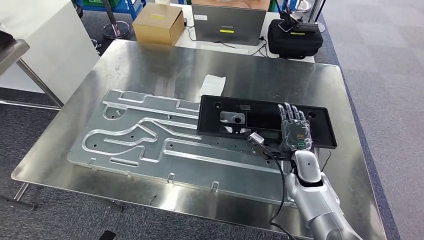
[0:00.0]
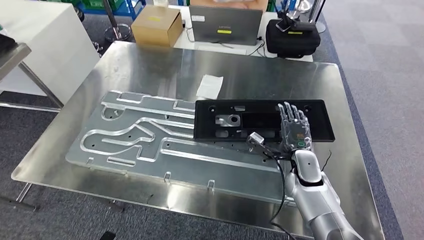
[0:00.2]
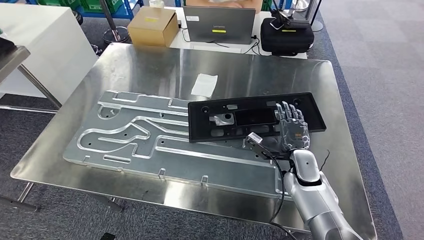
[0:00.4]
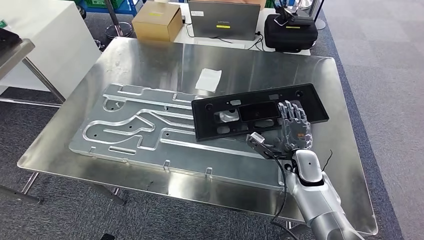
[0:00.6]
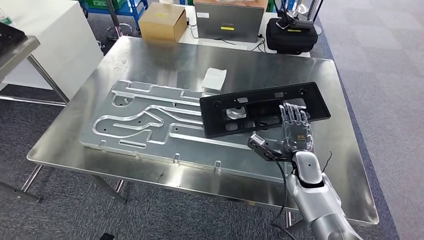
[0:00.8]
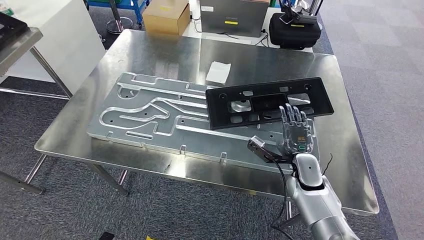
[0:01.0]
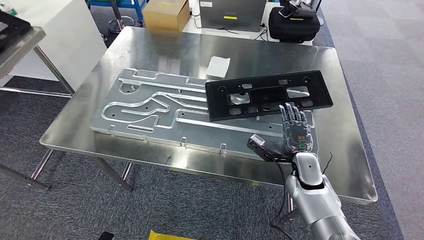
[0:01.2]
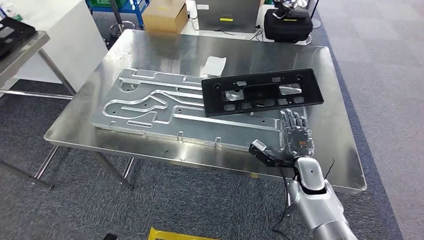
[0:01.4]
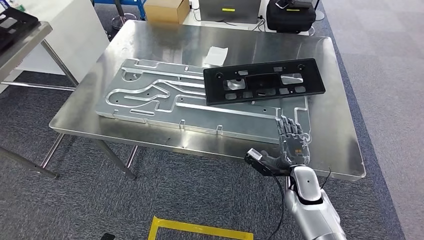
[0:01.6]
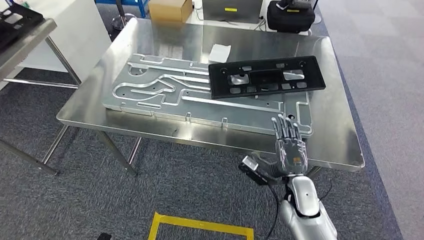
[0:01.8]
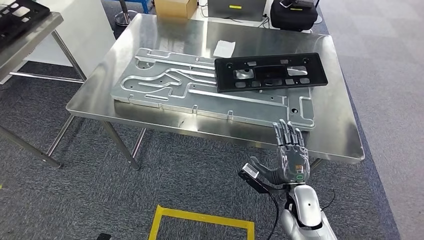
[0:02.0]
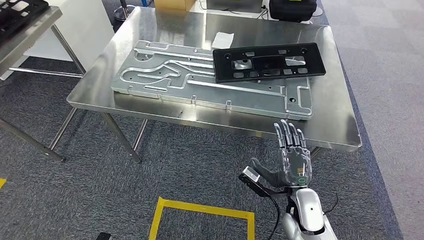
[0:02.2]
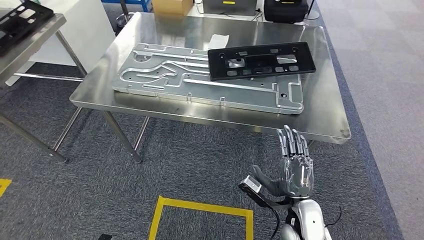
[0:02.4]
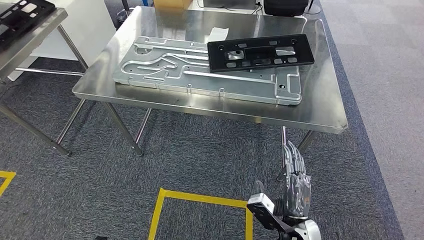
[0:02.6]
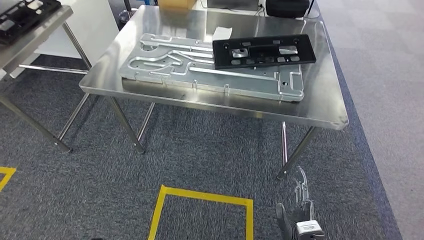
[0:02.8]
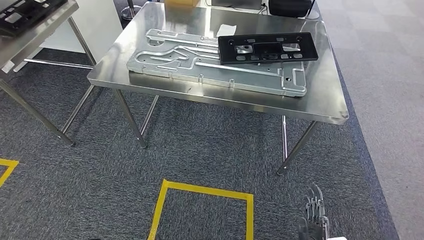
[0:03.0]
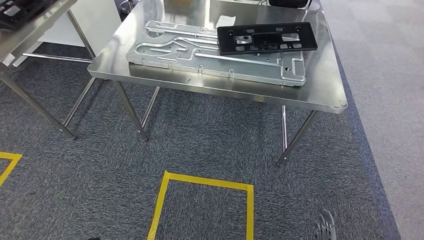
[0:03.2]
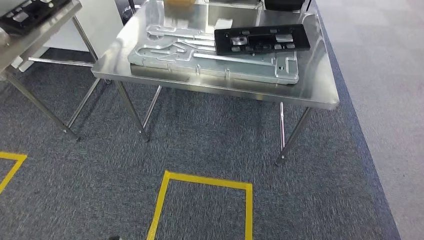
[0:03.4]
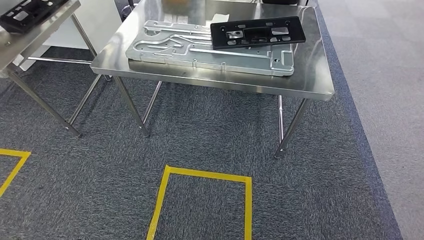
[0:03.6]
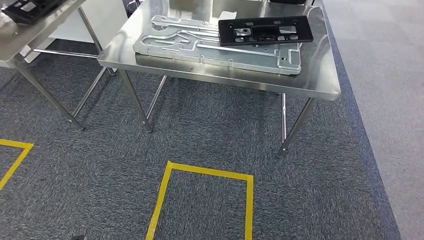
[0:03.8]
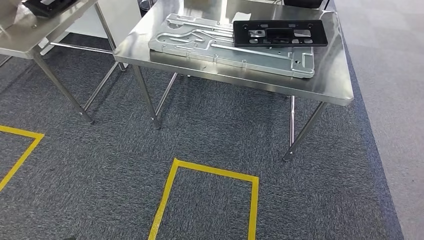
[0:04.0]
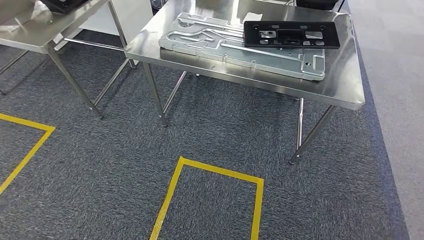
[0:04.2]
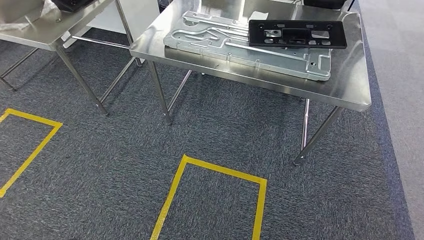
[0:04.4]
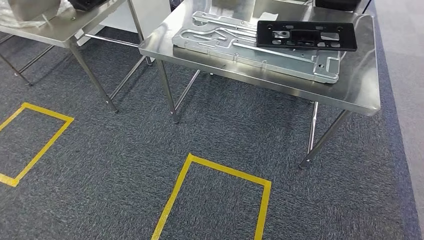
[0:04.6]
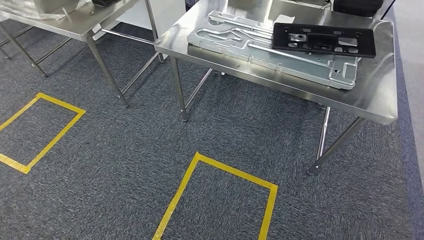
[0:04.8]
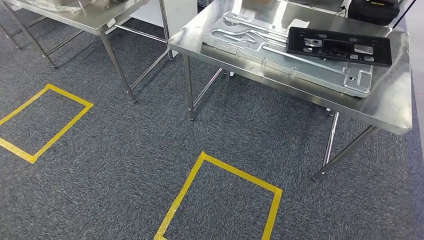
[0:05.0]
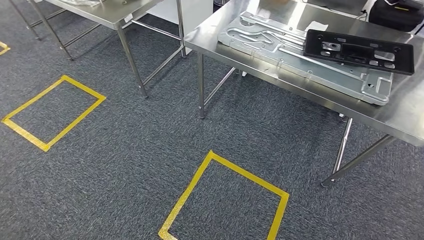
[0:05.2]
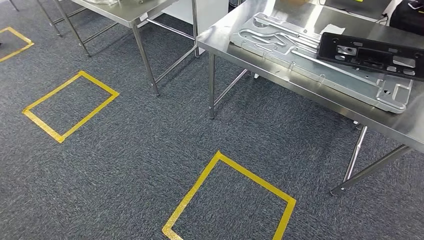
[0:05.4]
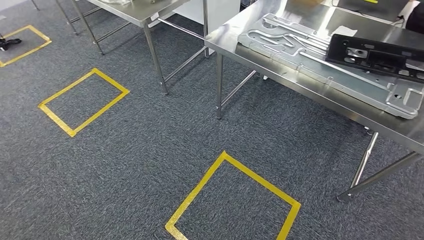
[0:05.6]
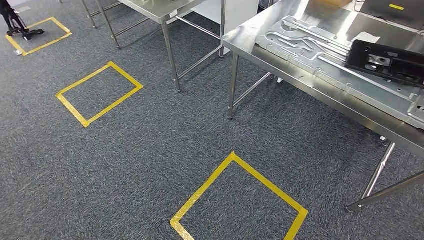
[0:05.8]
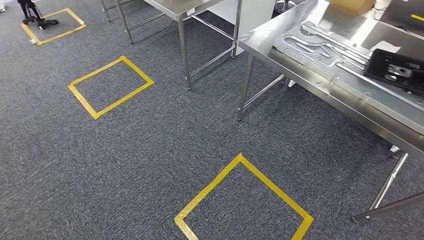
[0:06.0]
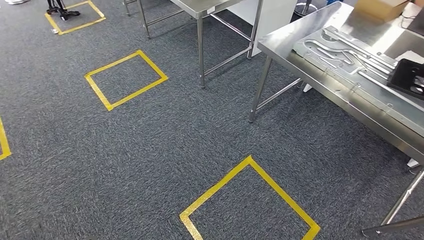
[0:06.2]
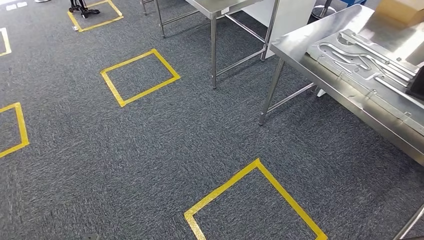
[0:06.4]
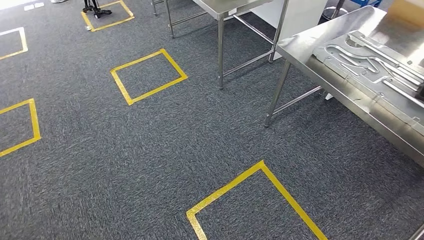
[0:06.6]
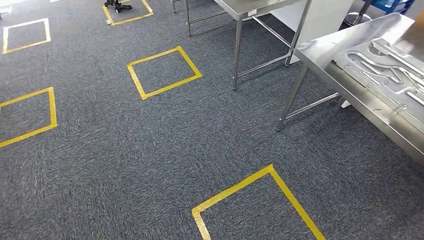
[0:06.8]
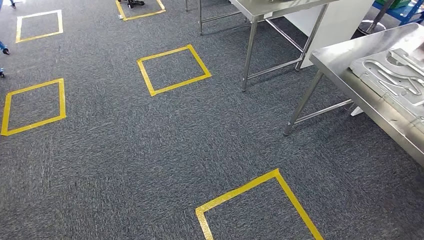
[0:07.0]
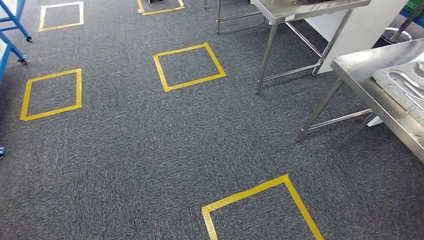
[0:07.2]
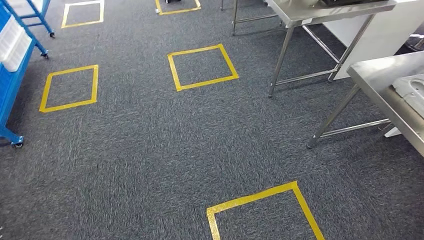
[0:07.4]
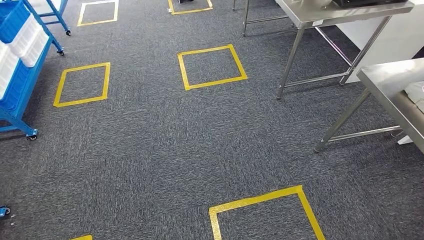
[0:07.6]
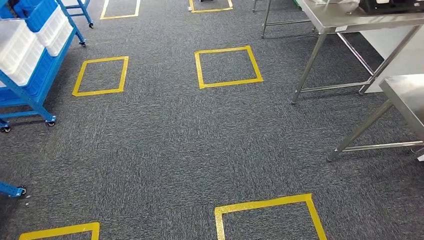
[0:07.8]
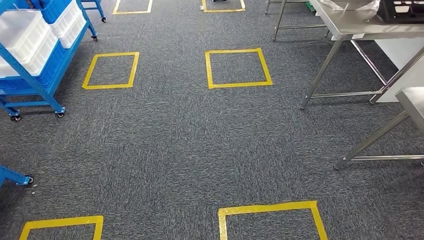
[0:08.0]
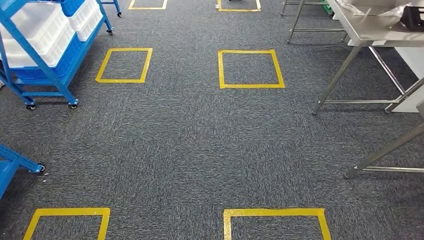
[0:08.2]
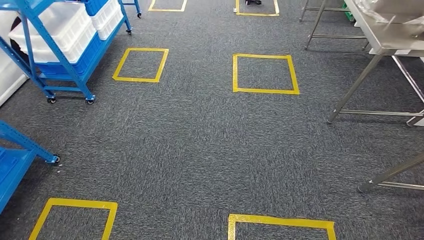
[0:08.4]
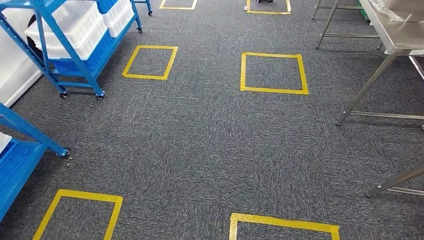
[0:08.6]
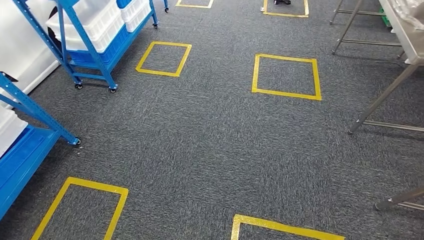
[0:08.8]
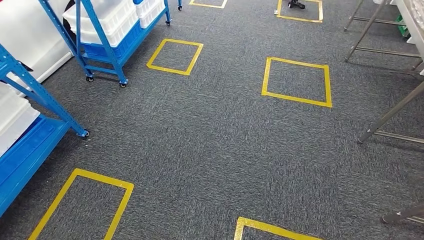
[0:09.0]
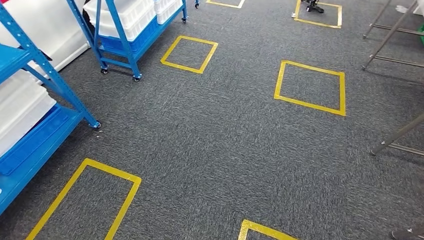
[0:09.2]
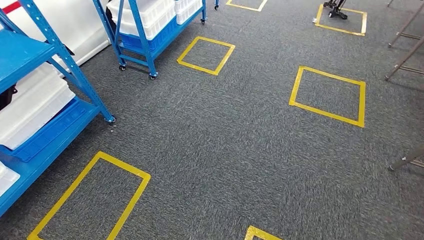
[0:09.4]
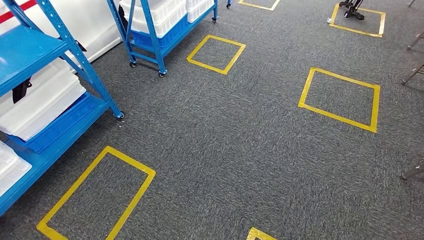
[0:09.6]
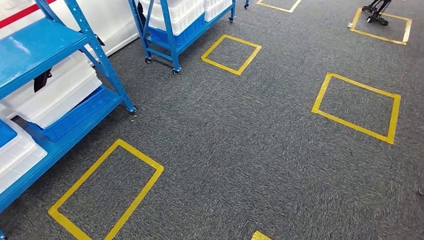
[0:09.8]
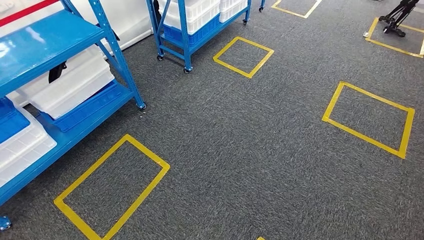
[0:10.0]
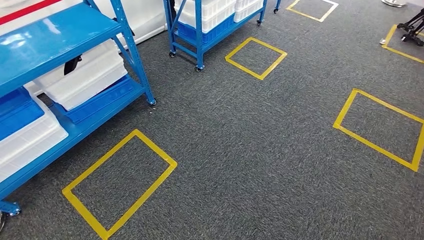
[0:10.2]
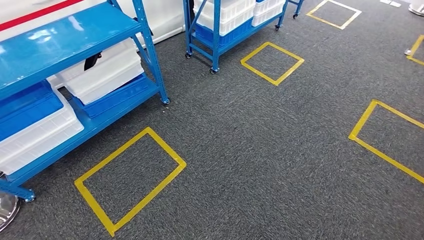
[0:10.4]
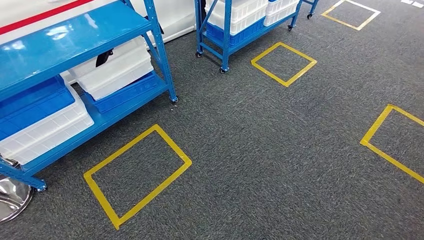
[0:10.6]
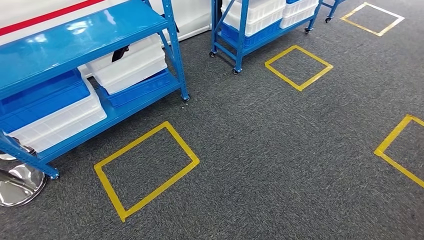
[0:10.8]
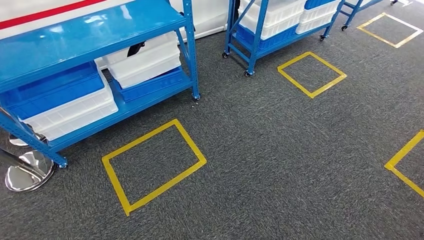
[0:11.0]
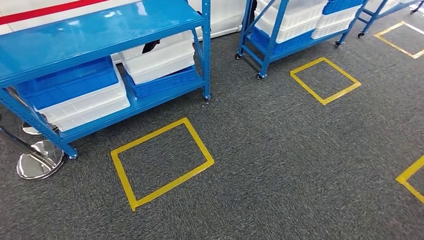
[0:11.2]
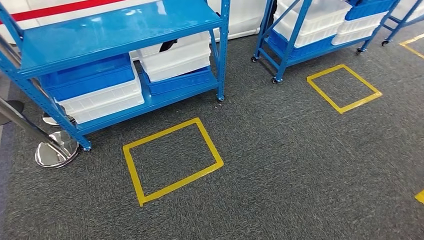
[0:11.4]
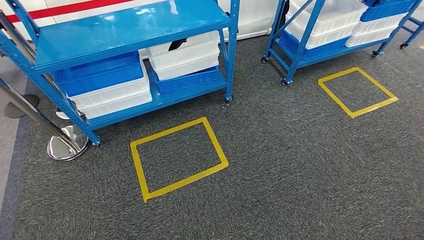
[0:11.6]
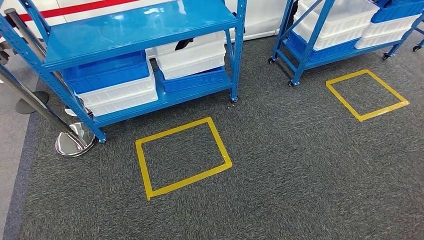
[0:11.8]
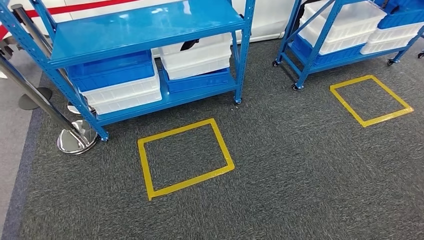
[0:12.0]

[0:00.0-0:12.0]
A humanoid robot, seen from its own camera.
Step, 0:00.0 to 0:04.0: Insert the large material into the corresponding slot on the workbench.

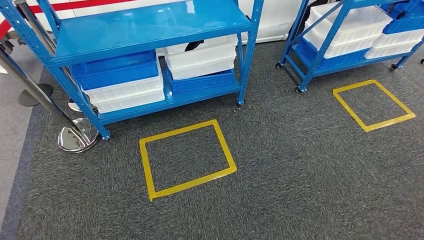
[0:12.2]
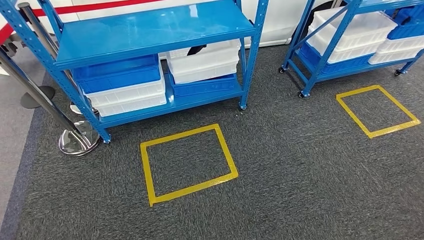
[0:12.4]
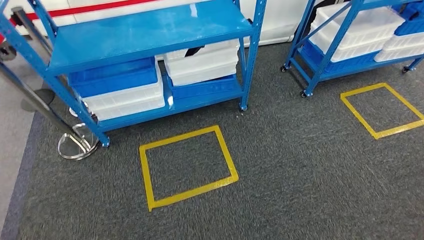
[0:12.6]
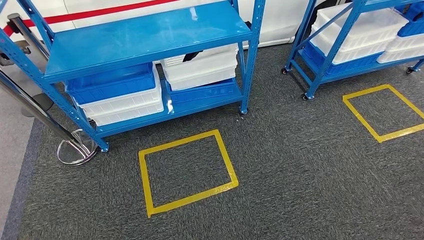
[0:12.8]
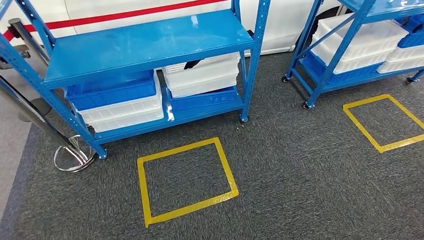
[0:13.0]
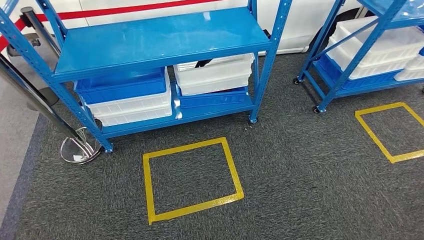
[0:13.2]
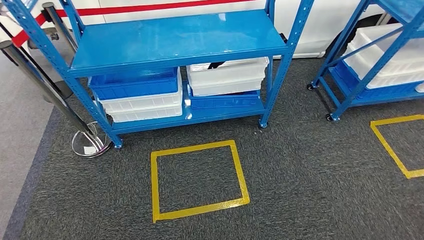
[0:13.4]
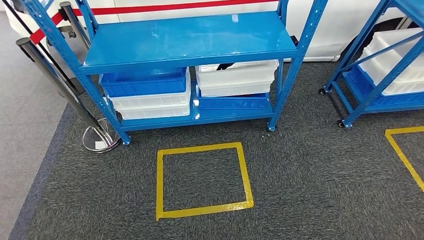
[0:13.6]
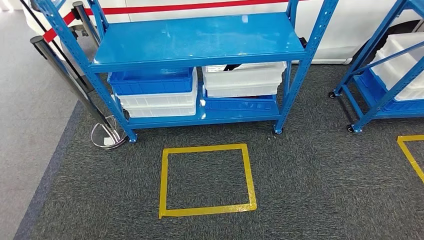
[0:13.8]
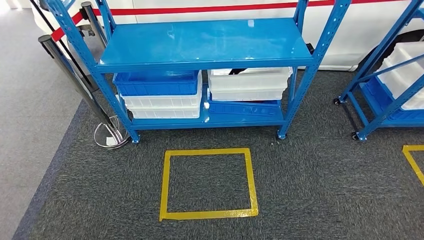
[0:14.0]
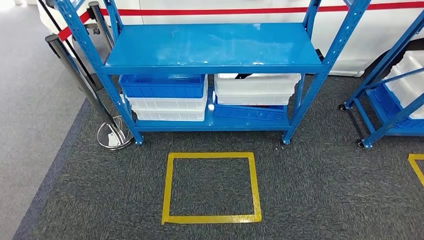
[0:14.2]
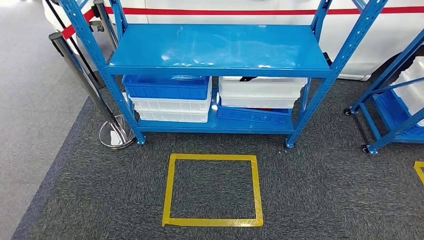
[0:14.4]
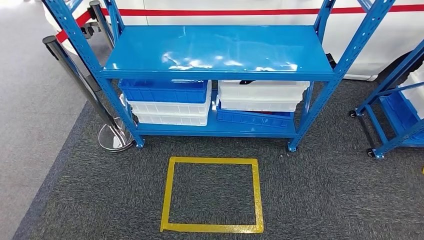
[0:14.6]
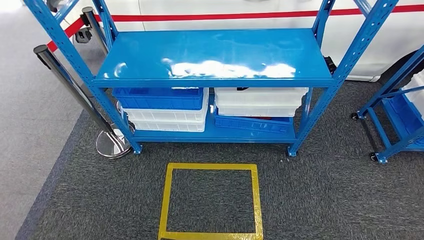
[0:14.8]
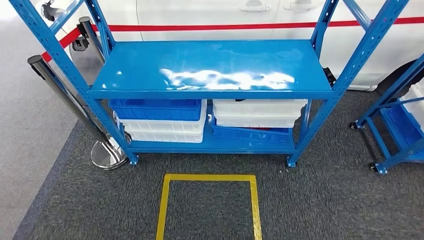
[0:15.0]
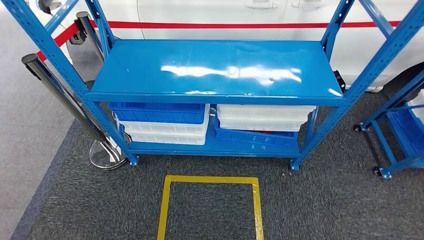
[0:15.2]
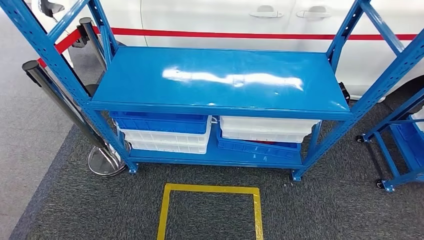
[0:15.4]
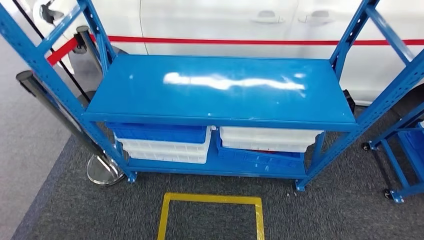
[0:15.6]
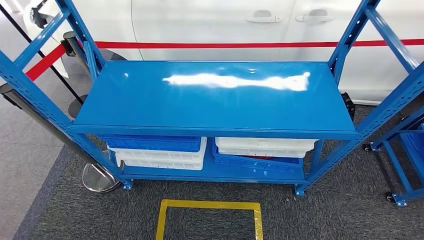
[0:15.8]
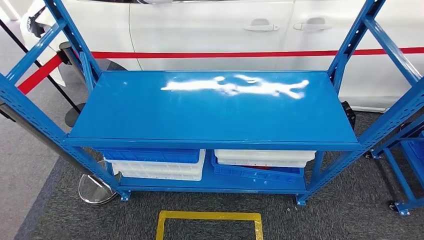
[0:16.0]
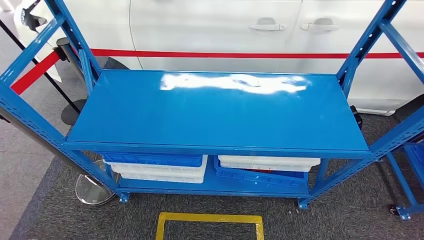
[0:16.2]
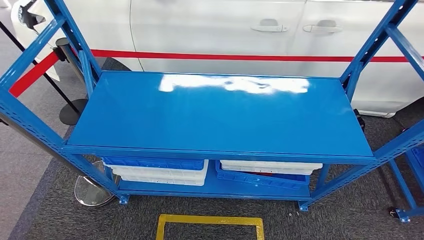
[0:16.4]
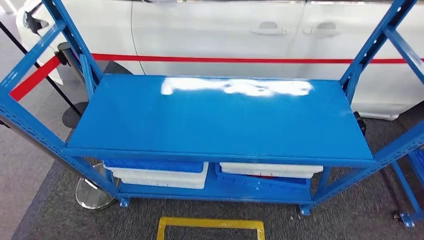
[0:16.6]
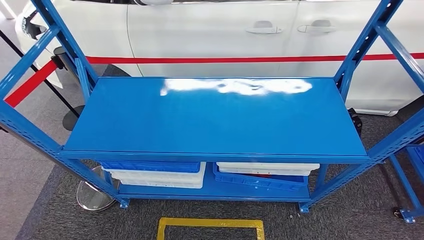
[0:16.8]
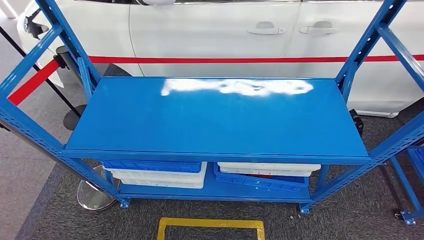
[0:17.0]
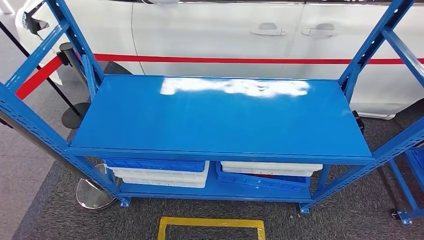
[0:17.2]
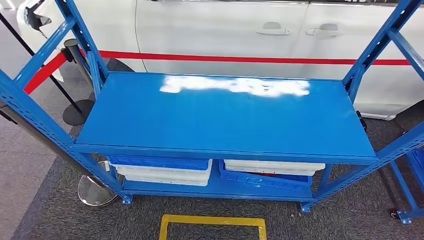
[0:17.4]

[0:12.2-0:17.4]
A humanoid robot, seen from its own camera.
Step, 0:12.2 to 0:17.2: Move to the initial position of the shelf.
